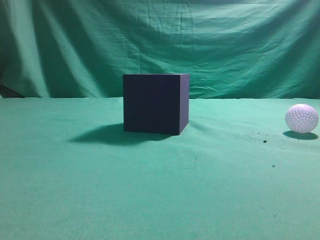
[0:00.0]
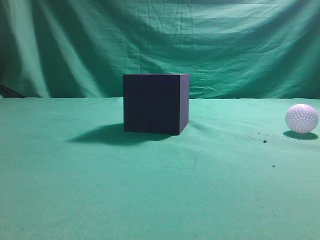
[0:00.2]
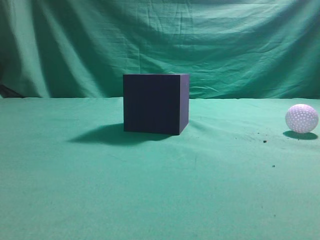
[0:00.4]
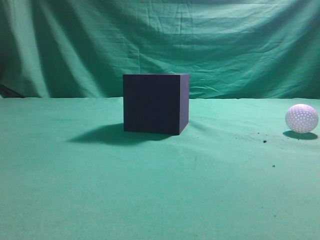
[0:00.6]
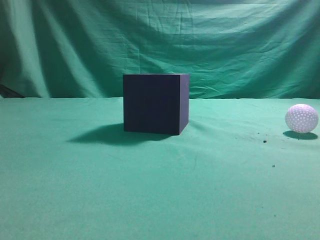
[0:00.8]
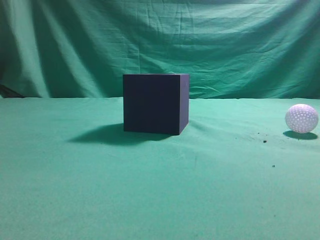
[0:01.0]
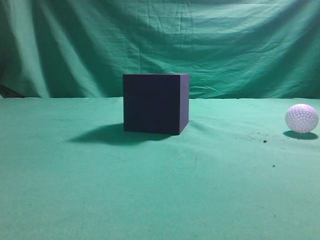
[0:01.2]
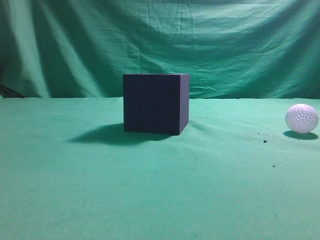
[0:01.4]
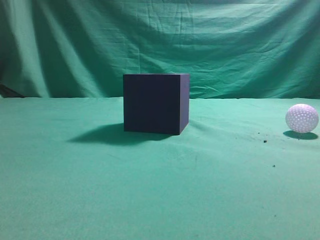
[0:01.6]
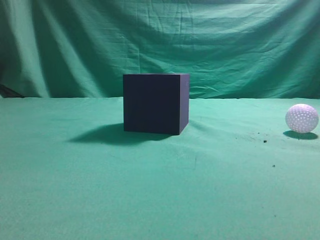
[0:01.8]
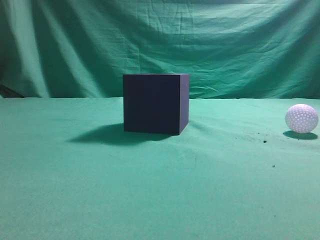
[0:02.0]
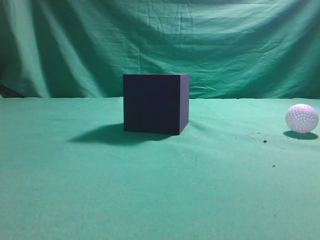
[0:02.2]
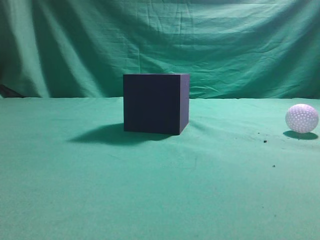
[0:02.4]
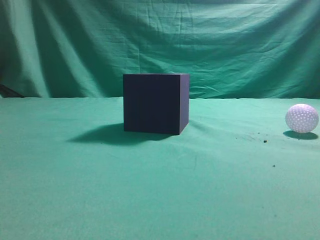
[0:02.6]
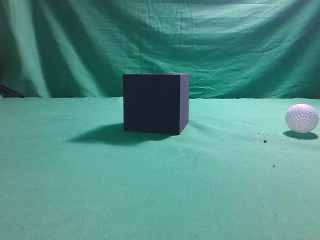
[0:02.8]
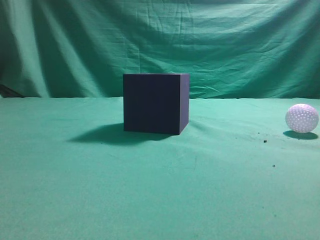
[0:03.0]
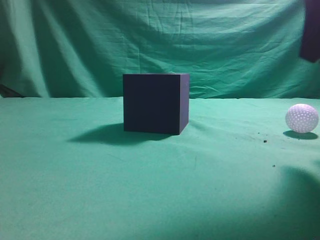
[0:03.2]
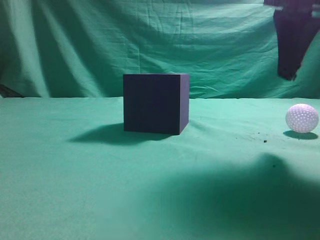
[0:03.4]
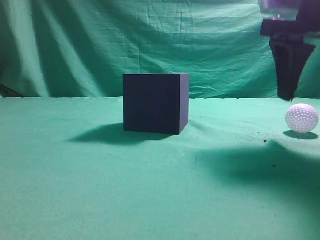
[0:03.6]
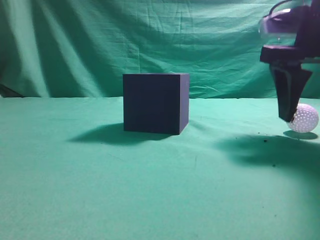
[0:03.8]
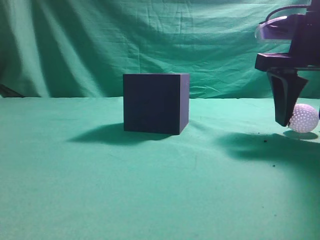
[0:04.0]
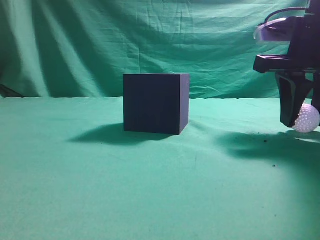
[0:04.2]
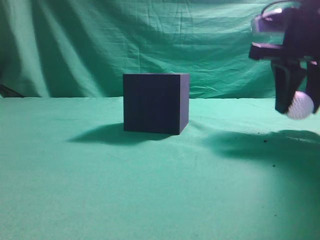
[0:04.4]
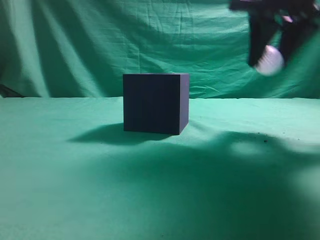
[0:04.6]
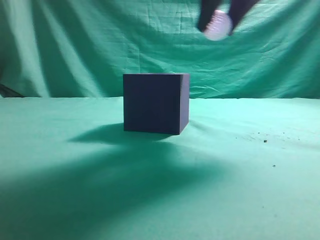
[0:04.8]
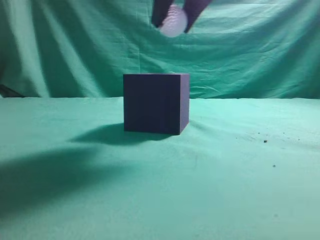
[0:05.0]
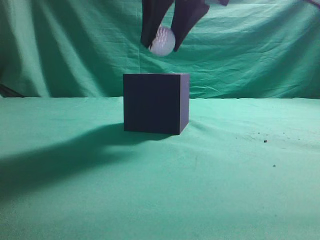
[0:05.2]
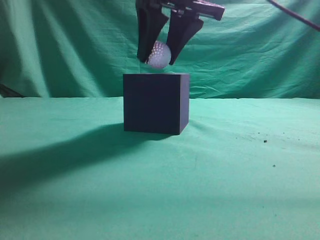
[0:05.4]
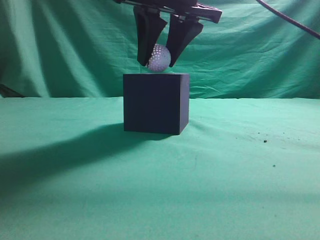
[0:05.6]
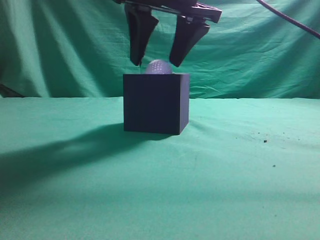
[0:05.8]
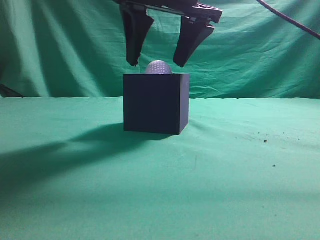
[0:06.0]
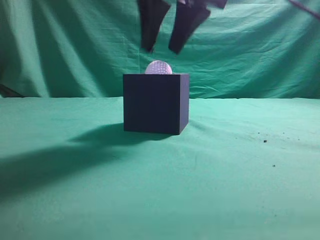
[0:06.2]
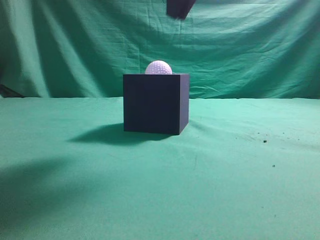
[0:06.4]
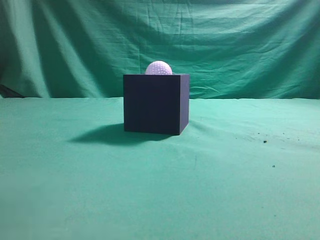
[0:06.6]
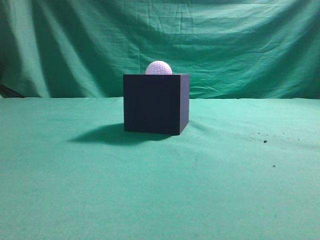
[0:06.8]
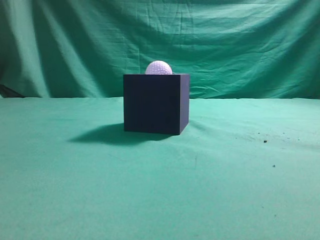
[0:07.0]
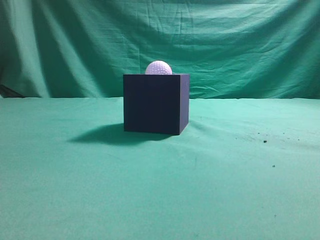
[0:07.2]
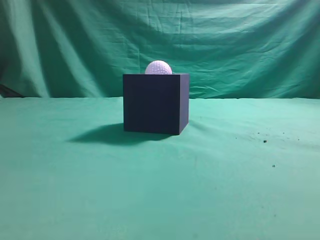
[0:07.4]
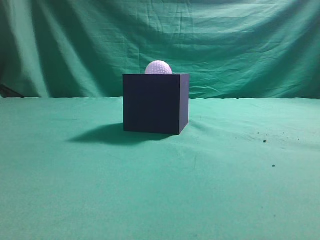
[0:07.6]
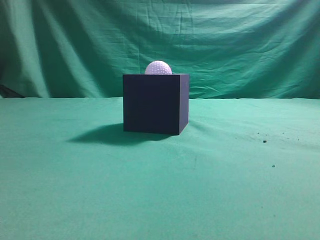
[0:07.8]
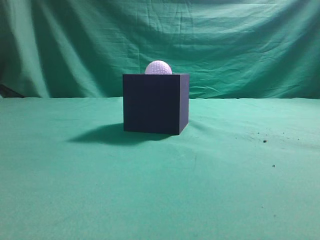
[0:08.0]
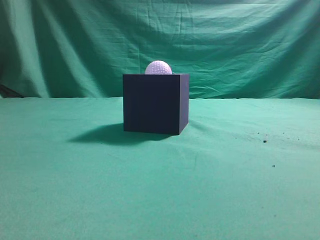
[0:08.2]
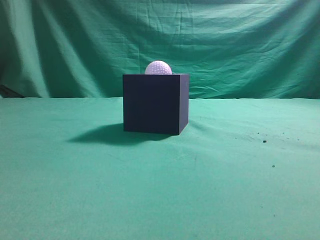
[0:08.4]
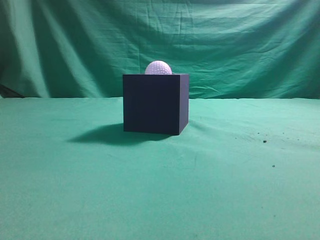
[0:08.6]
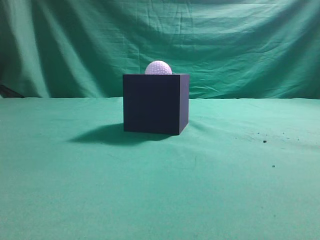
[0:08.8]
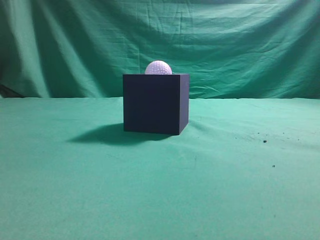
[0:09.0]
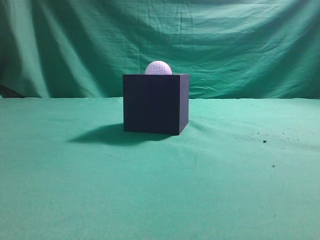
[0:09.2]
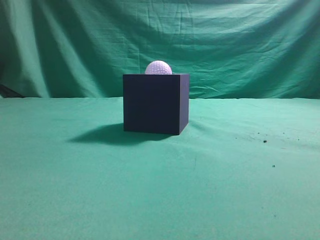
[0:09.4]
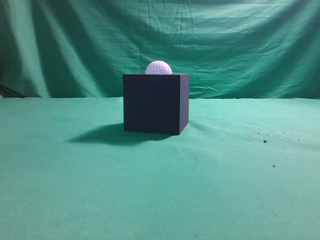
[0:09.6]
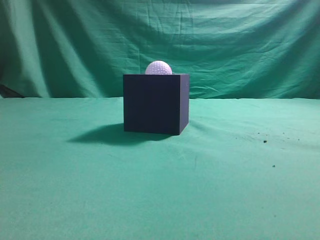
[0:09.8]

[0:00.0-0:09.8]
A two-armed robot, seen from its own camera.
Task of the whole recording: Pick up the ball and place it in the circular groove above the cube.
Step, 0:00.0 to 0:04.4: Grasp the sphere on the table.
Step, 0:04.6 to 0:06.0: Place the sphere into the sphere-shaped recess.
0:02.8 to 0:04.2: The right gripper moves forward and downward, about 15 cm, and opens.
0:04.2 to 0:05.6: The right gripper travels to the left and upward by some 20 cm.
0:05.6 to 0:07.0: The right gripper moves backward, upward and to the right, about 20 cm, and closes its fingers.

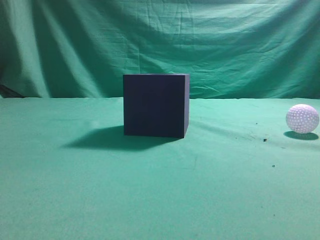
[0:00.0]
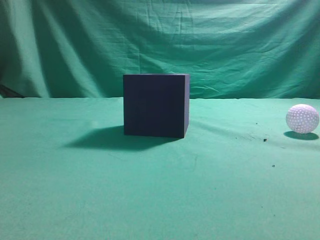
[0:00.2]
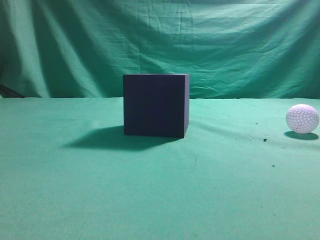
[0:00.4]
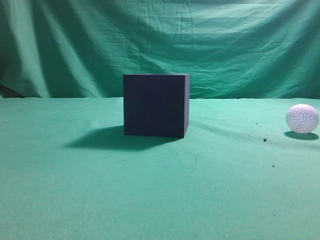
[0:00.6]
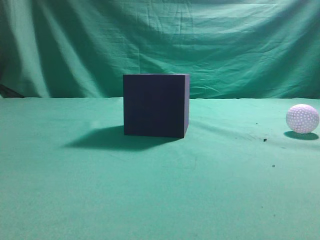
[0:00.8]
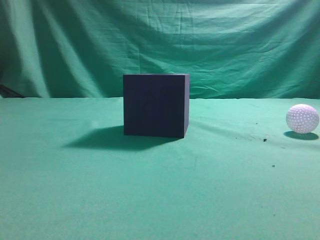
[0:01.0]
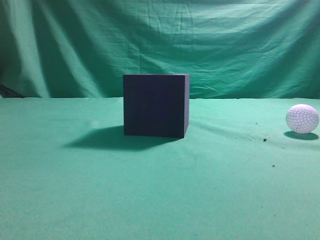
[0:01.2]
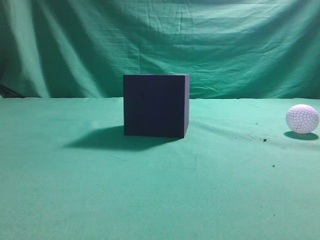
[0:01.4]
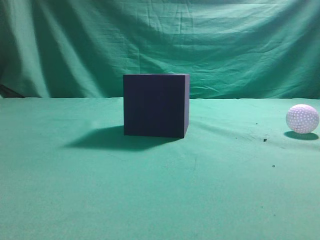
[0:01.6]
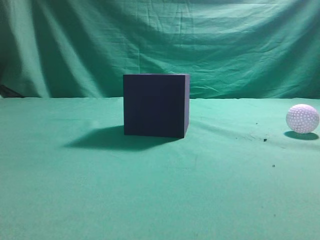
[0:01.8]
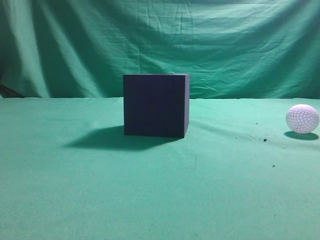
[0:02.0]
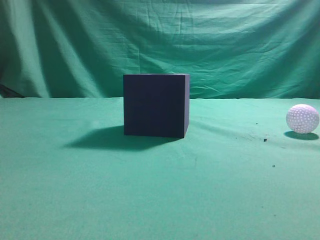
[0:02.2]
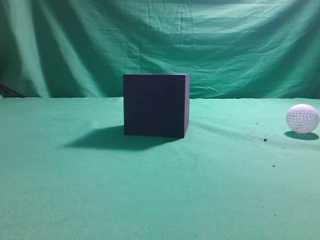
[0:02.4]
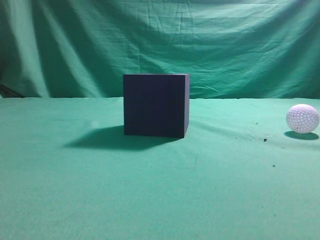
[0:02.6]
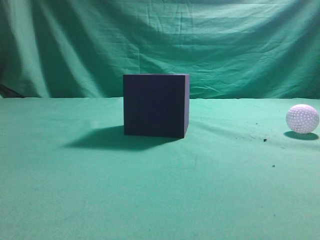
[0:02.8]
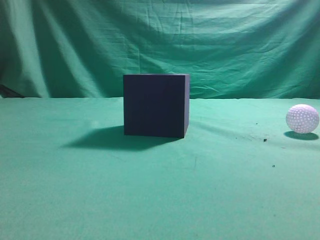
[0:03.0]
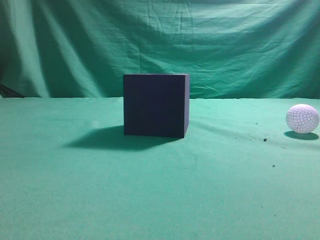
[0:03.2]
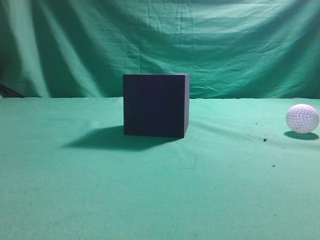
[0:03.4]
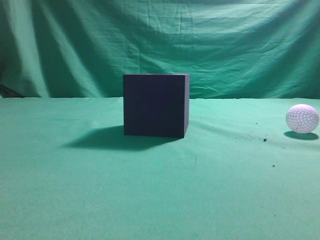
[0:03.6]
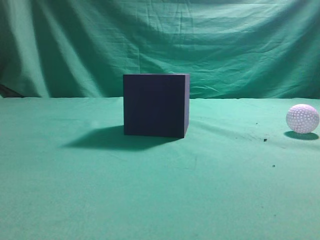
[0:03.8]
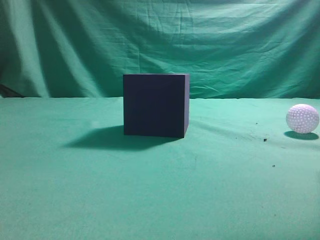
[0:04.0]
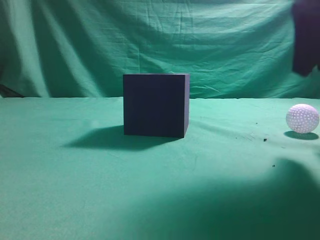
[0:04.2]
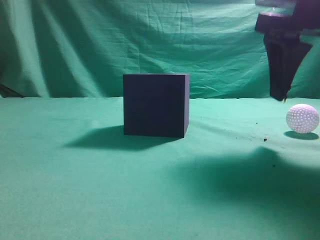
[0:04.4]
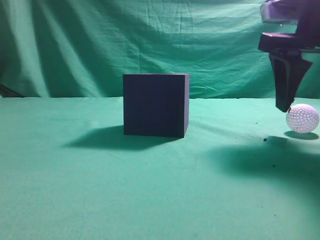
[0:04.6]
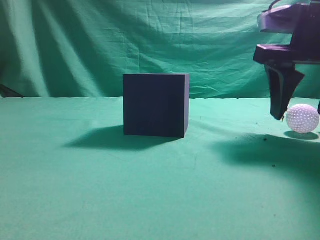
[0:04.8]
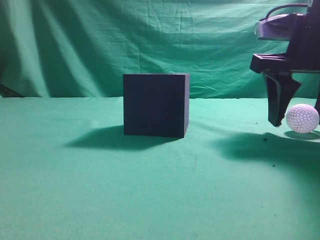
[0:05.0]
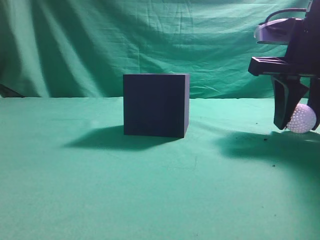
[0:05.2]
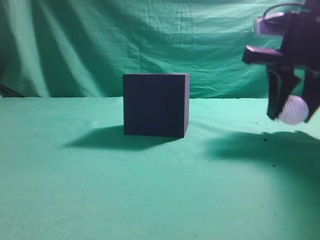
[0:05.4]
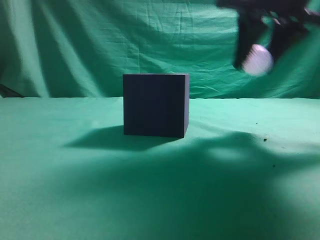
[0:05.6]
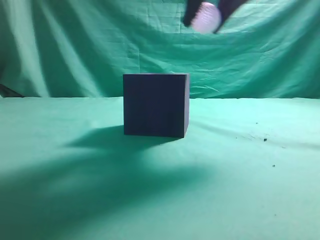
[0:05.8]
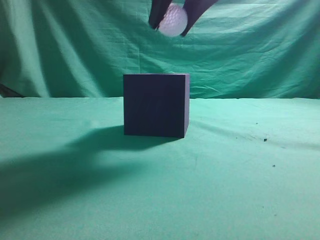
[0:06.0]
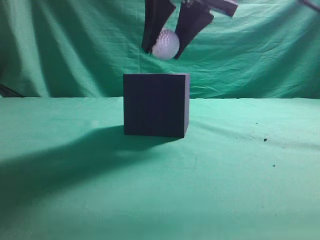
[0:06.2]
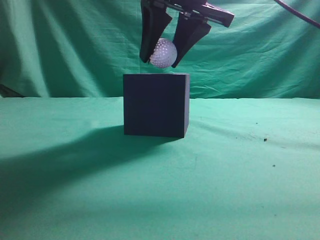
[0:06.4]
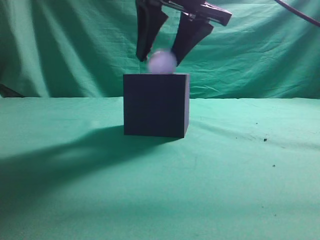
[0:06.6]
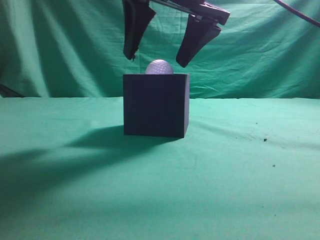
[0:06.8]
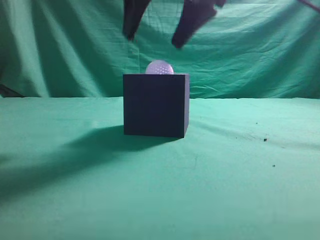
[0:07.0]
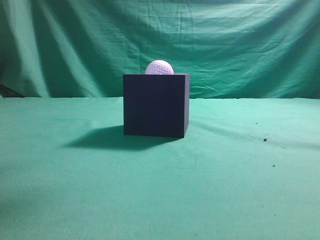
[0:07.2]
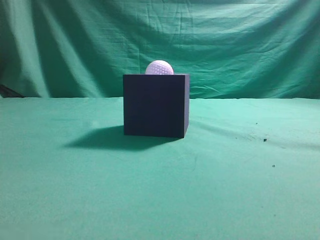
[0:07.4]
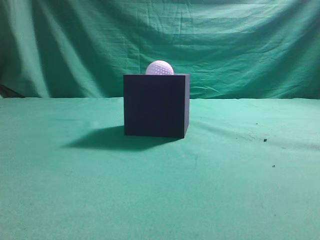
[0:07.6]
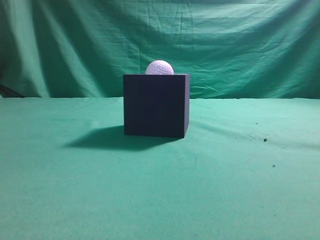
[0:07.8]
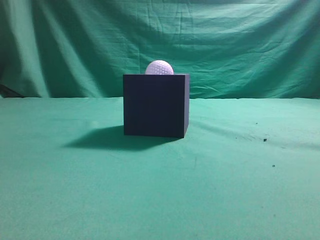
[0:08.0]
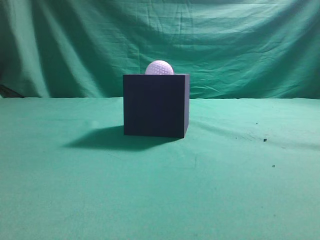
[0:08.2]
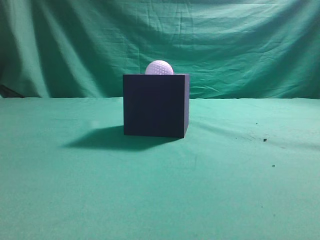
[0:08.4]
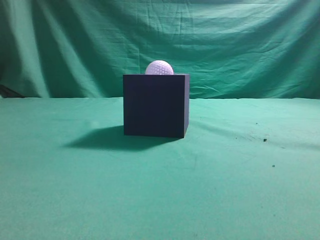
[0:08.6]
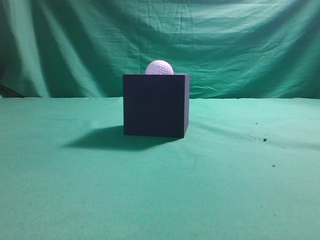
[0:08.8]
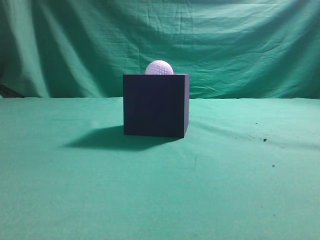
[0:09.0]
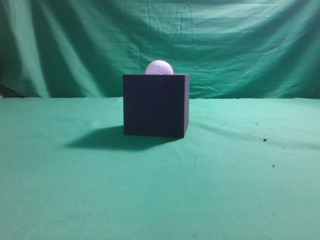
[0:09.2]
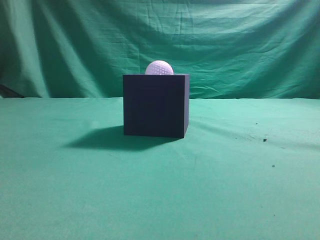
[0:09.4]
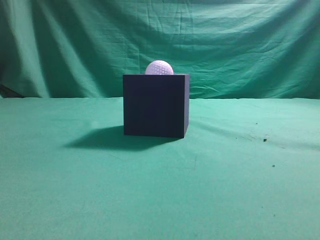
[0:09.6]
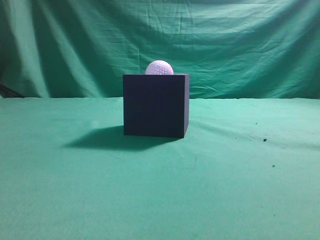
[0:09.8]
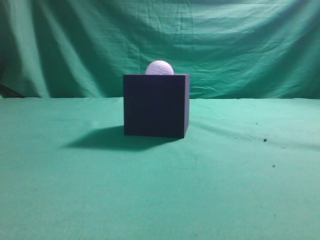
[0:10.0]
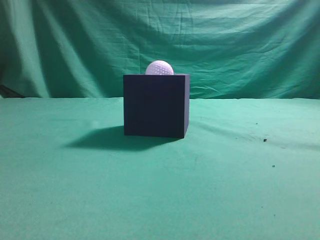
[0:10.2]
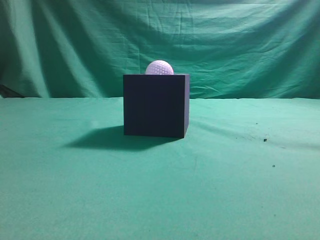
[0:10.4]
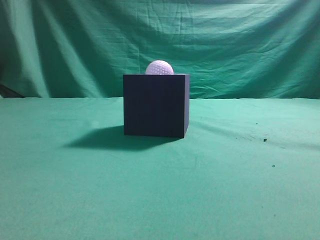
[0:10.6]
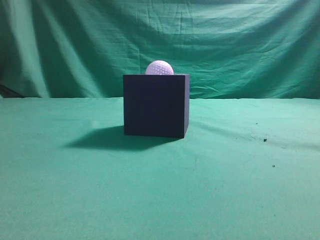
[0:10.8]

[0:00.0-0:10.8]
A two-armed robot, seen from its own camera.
Task of the whole recording: Pick up the ball and place it in the circular groove above the cube.
Step, 0:00.0 to 0:05.4: Grasp the sphere on the table.
Step, 0:05.6 to 0:07.0: Place the sphere into the sphere-shaped recess.
0:03.0 to 0:04.6: The right gripper travels forward and to the left by some 20 cm, and opens its fingers.
0:04.6 to 0:06.2: The right gripper shifts approximately 15 cm to the left and upward, and closes its fingers.
0:06.2 to 0:07.8: The right gripper moves upward, backward and to the right, about 25 cm, and closes its fingers.
